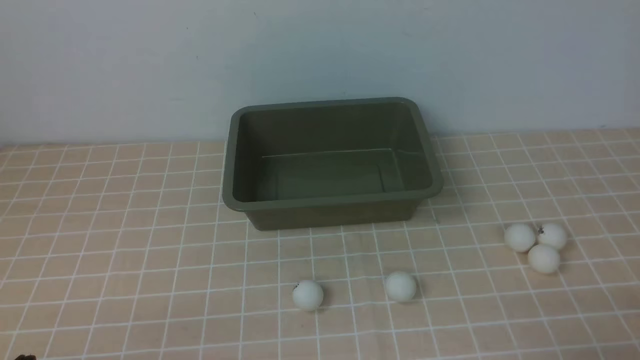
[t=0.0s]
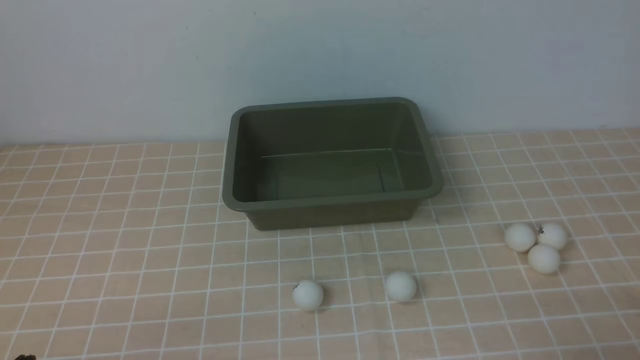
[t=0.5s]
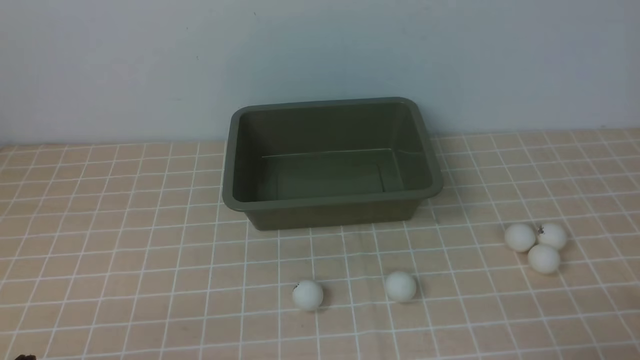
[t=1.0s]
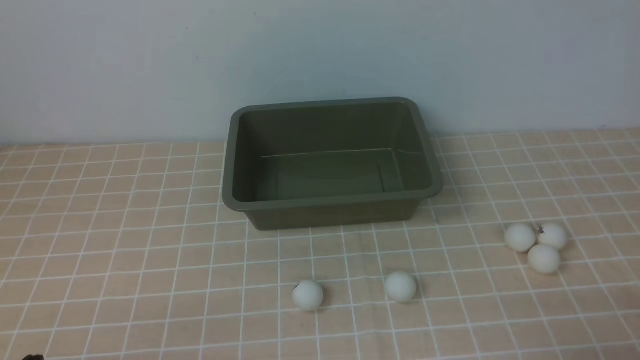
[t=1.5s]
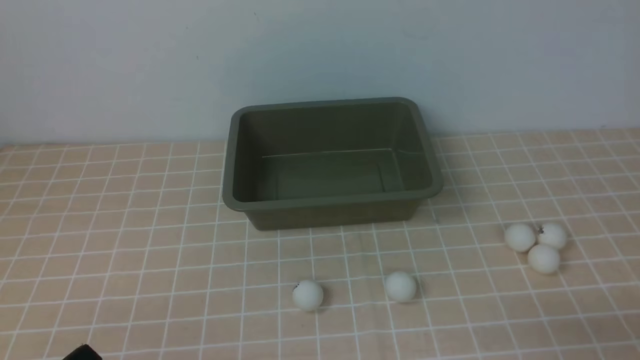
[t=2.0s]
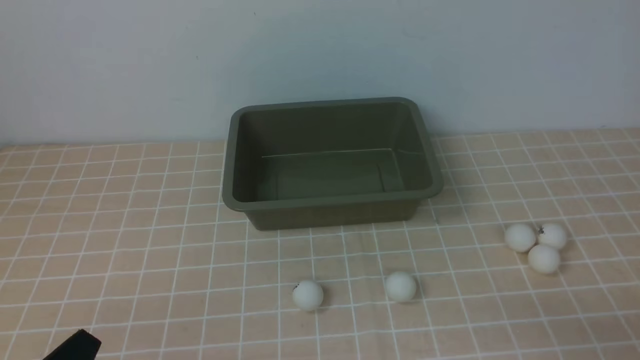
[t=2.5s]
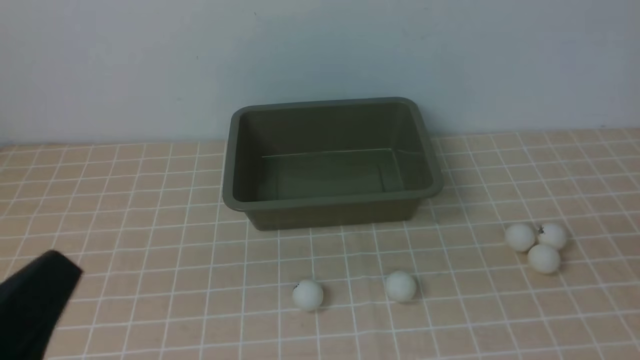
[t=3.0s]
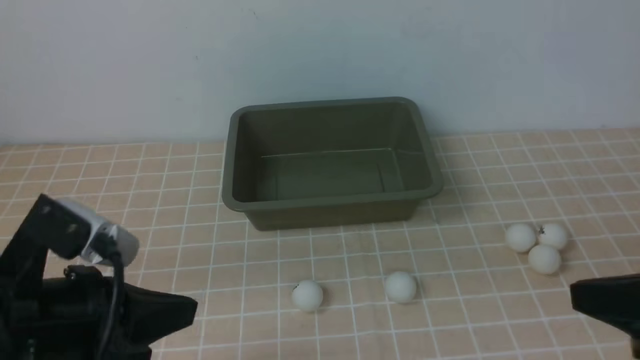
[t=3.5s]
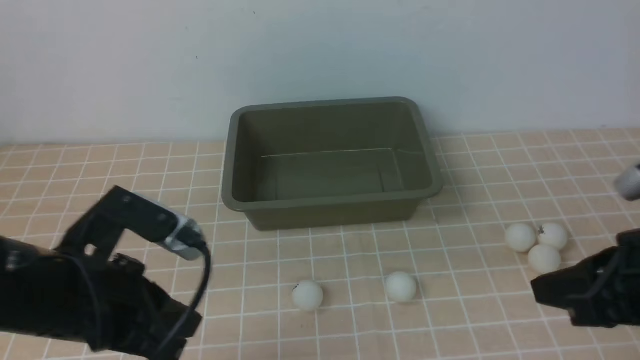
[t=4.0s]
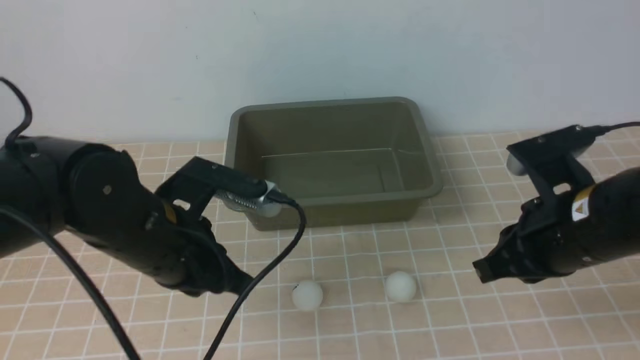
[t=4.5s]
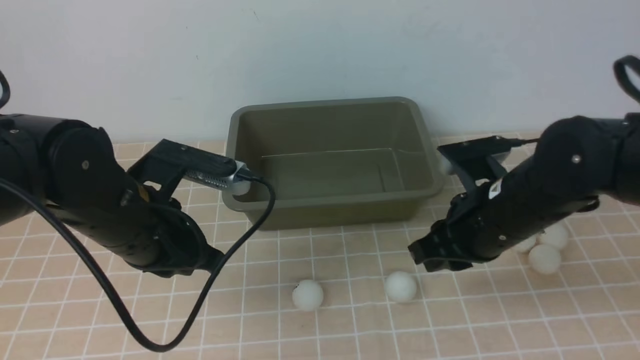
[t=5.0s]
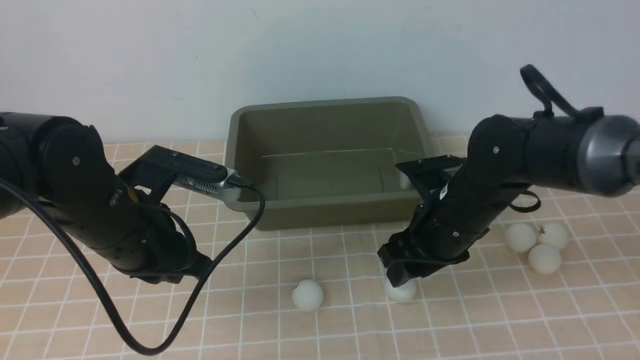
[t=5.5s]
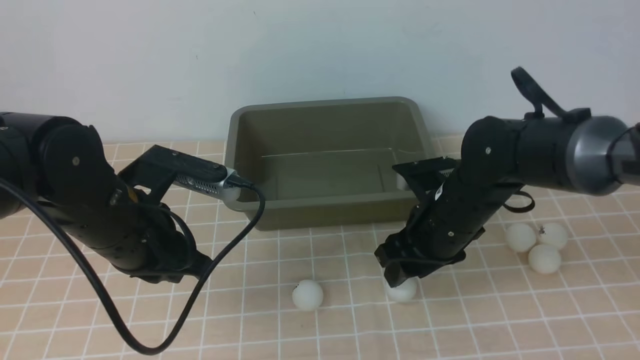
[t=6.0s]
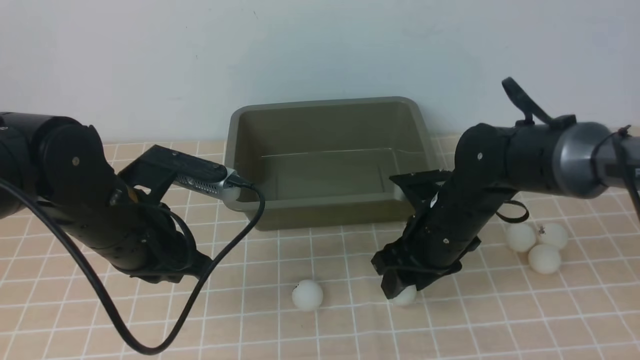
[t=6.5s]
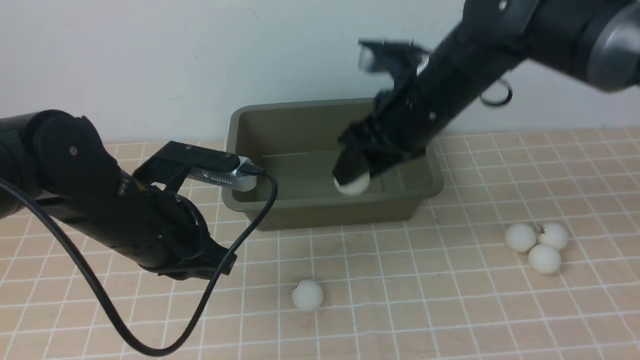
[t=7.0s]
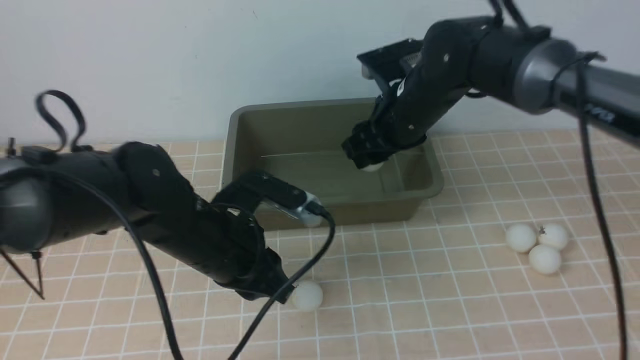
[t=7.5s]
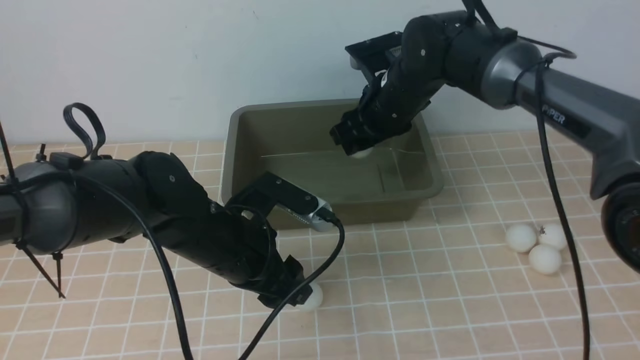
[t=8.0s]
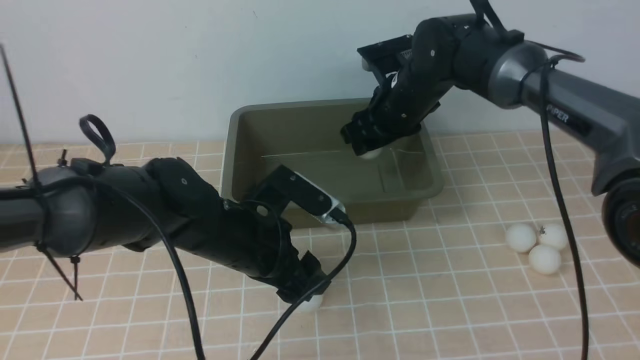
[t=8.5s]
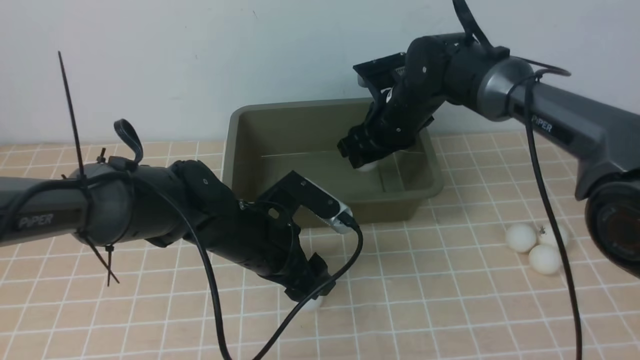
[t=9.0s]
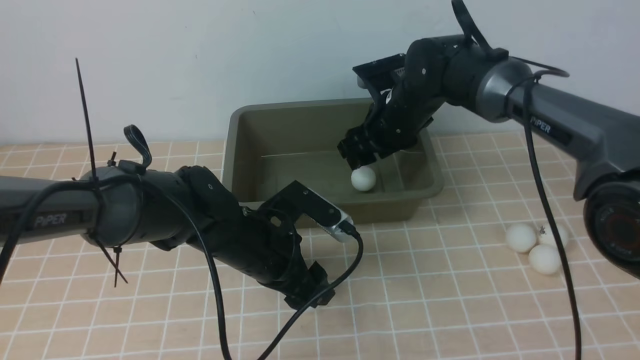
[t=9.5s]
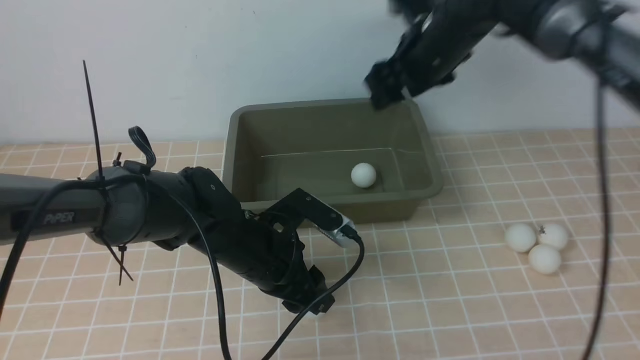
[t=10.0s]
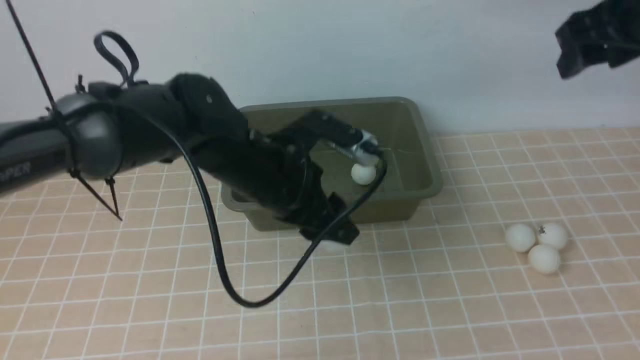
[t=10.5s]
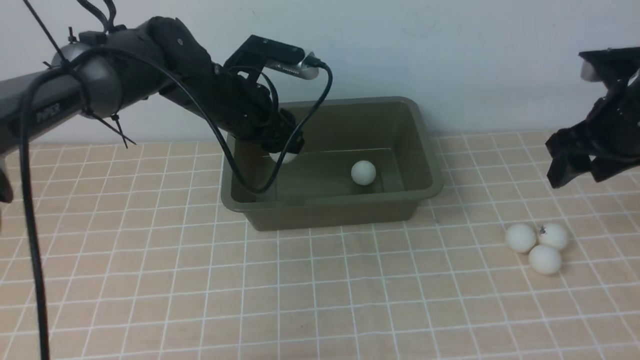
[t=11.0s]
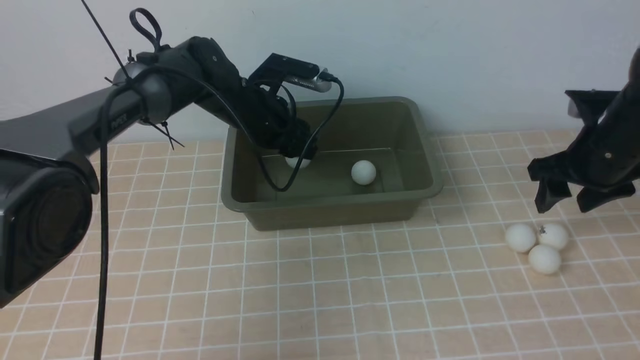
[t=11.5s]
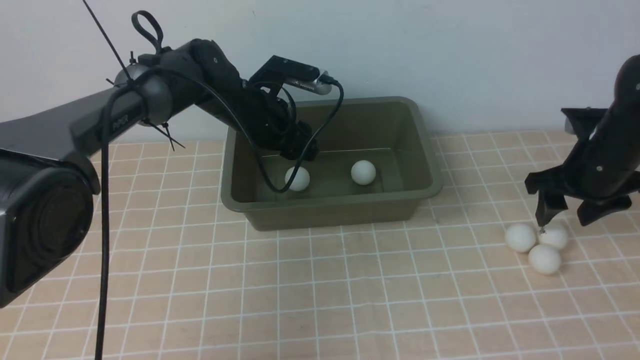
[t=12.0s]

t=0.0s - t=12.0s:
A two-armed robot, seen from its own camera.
Step, t=0.0s - t=6.5s: use the right arm to clamp the table tennis ball closest to it.
Step, t=7.0s - t=9.5s: use the right arm to put the table tennis ball into the box.
Step, t=10.0s - t=10.5s: use the left arm to clamp the table tennis ball closest to it.
t=2.0s - t=4.0s: Both grippers move forward and upward, about 15 cm.
t=4.0s - t=6.0s: The left gripper travels forward by some 10 cm, while the right gripper shifts some 20 cm forward, to the left and downward, and opens up.
t=6.0s - t=8.0s: The right gripper goes some 15 cm forward and upward; the left gripper travels to the right and downward by some 10 cm, and opens up.
t=8.0s - t=10.0s: The left gripper ends up some 5 cm from where it was. The right gripper travels upward and to the right by approximately 10 cm.
t=10.0s - t=12.0s: The right gripper moves to the right, downward and backward, some 20 cm. The left gripper heads forward, covering about 20 cm.

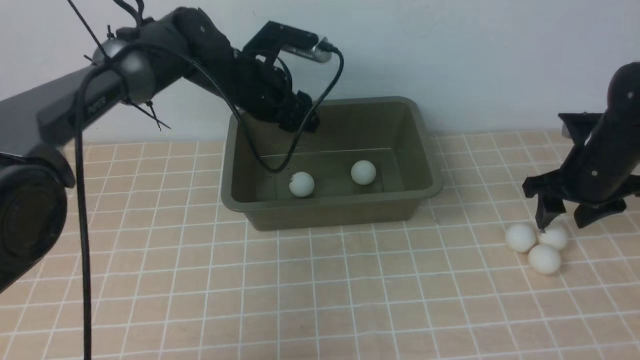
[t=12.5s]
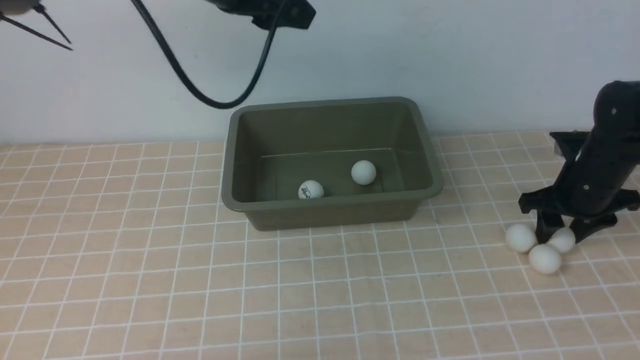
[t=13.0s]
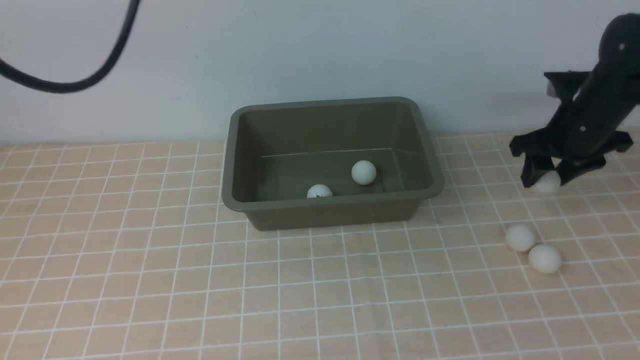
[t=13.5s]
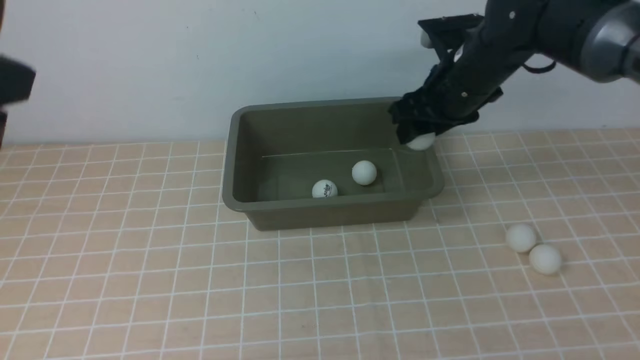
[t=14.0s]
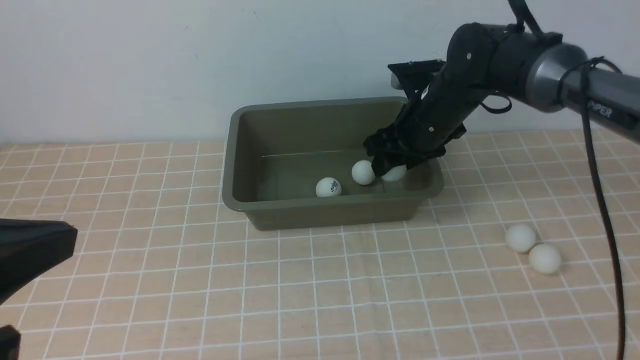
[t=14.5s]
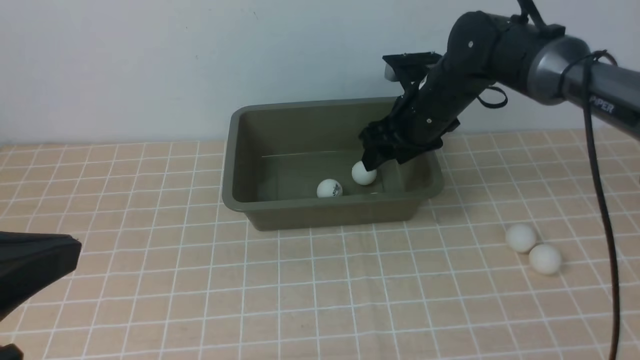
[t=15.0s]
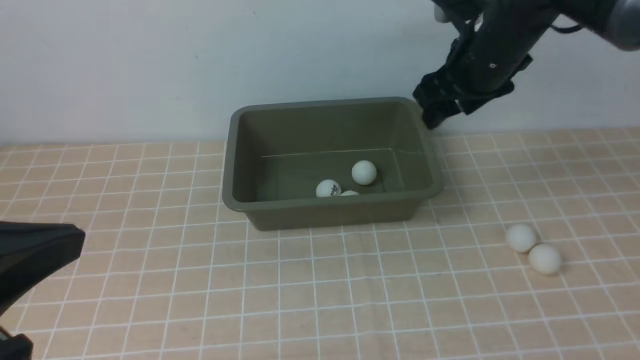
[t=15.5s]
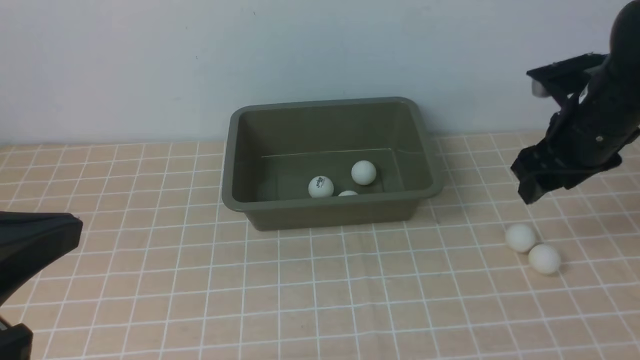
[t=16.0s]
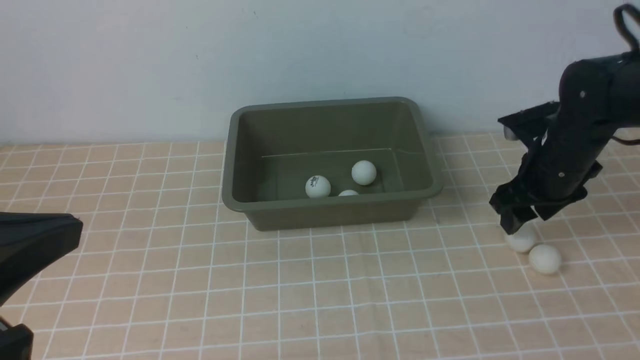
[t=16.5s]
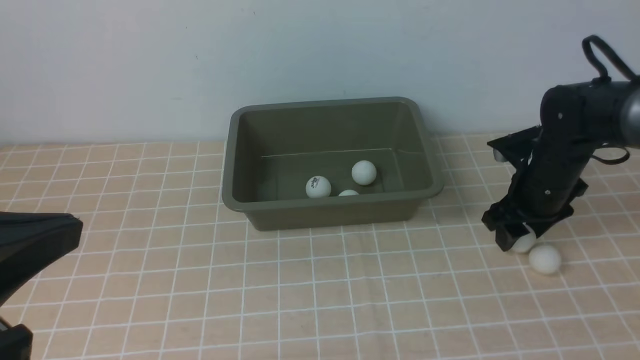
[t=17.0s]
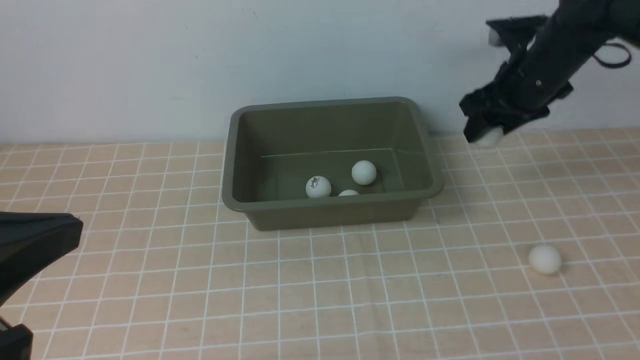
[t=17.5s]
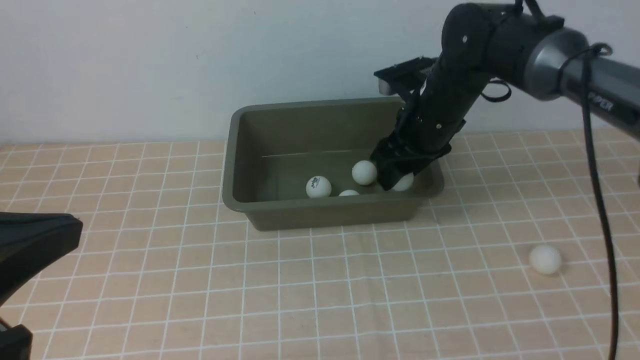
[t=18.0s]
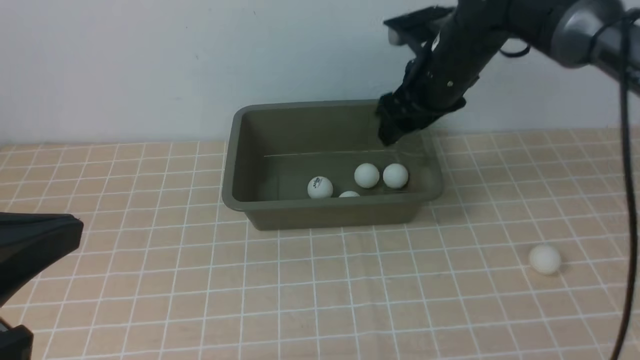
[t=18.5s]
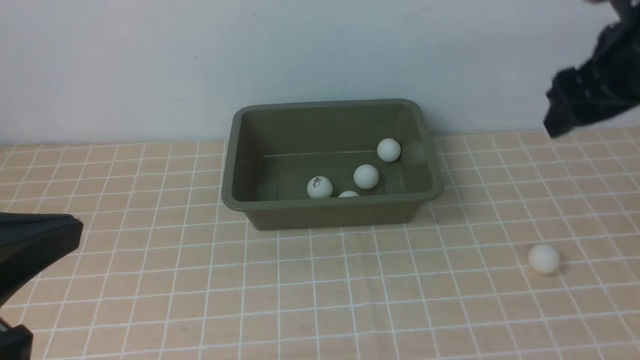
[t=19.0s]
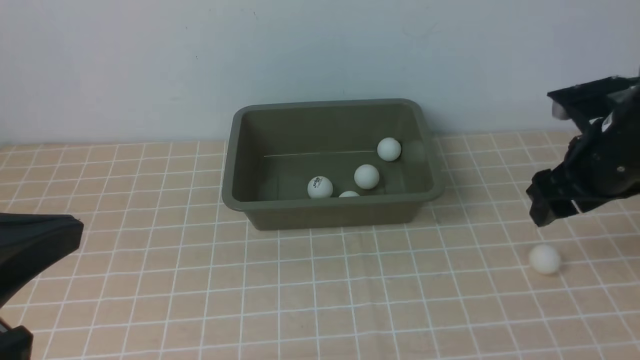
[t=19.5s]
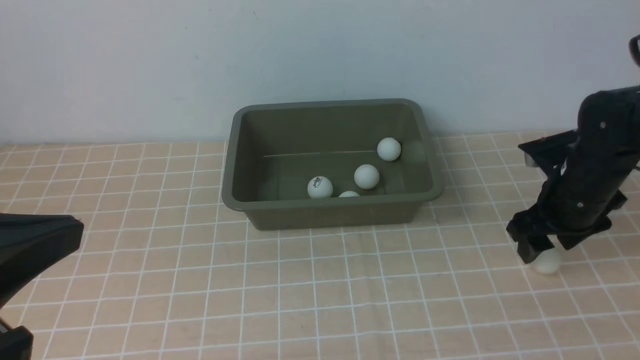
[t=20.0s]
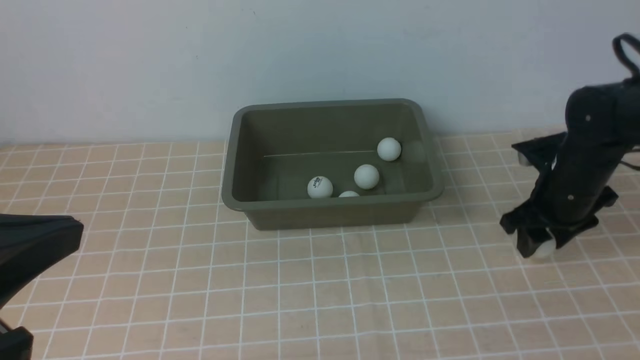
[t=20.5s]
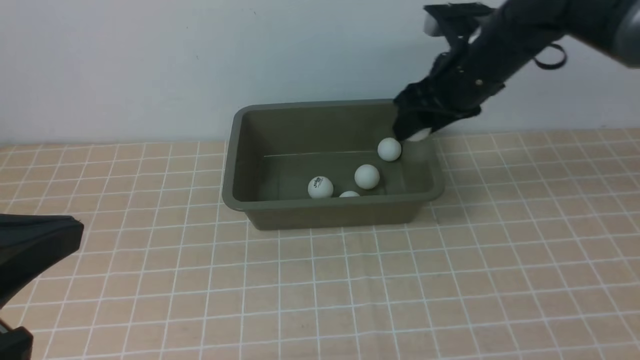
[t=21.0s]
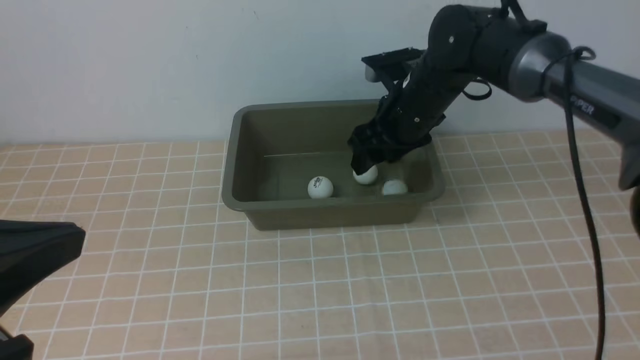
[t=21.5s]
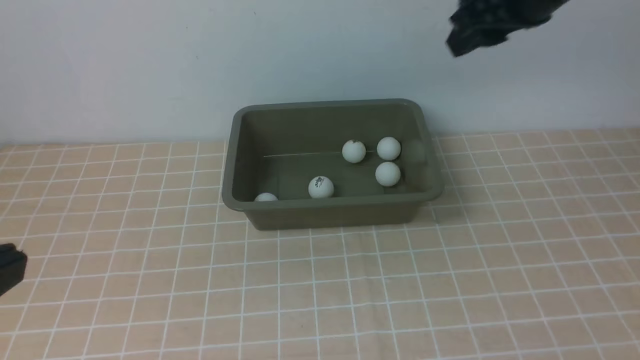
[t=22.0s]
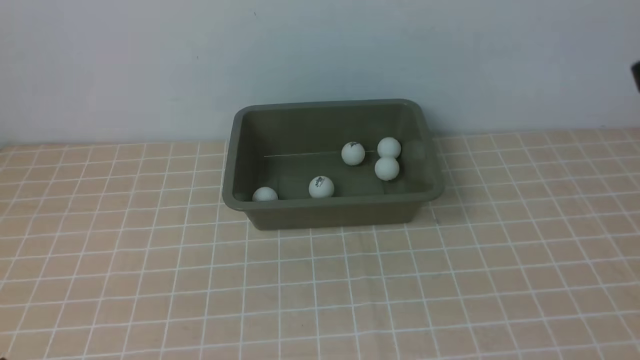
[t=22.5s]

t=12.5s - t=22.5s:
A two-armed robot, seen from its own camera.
Step, t=14.0s - t=14.5s: use the right arm to put the table tennis ball into the box.
Step, t=15.0s - t=17.0s: use the right arm to clamp the table tennis ball closest to it.
Step, t=17.5s - t=18.5s: use the right arm to put the table tennis ball into the box.
Step, t=19.0s - t=20.5s: use the right arm to clamp the table tennis ball closest to it.
Step, t=21.0s - t=21.5s: use the right arm to put the table tennis ball into the box.
t=12.5s - t=14.5s: The right gripper is displaced to the left by approximately 20 cm. Meanwhile the left gripper shifts some 40 cm backward, and closes its fingers.
t=14.5s - t=16.5s: The right gripper is displaced to the right and backward by about 15 cm.
t=16.5s - t=18.5s: The right gripper goes some 15 cm upward and to the left.
t=18.5s - t=20.5s: The right gripper moves downward and to the right, roughly 15 cm.
t=20.5s - t=22.5s: The right gripper moves upward and backward, about 30 cm. The left gripper moves backward and downward, some 10 cm.
